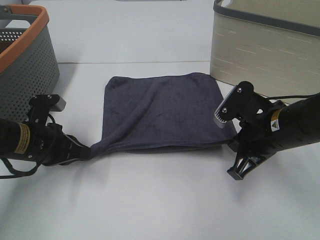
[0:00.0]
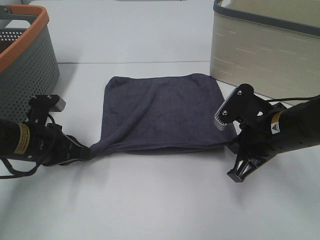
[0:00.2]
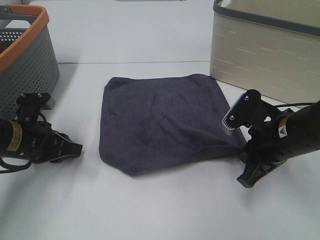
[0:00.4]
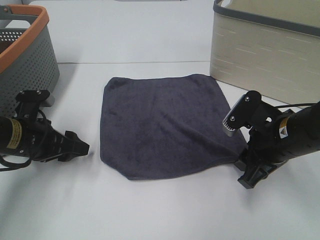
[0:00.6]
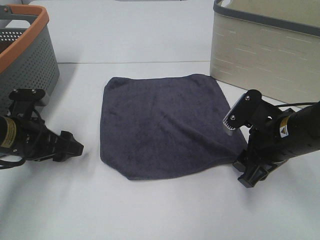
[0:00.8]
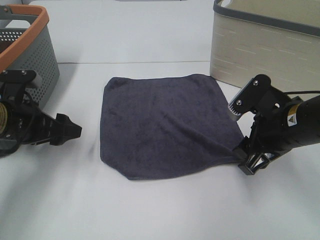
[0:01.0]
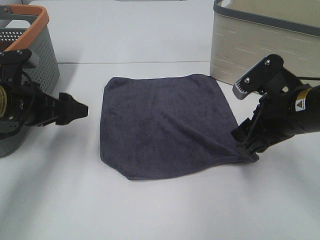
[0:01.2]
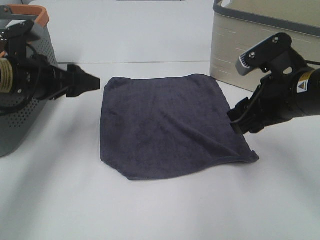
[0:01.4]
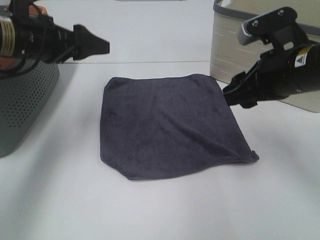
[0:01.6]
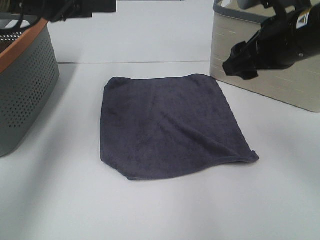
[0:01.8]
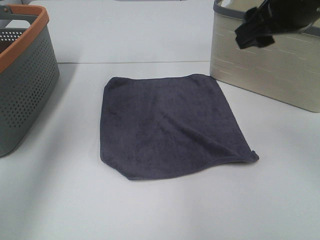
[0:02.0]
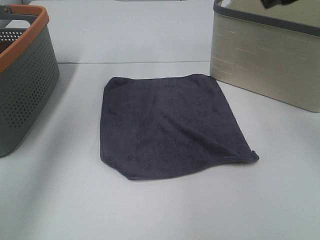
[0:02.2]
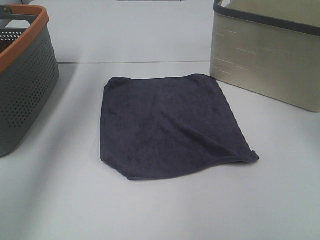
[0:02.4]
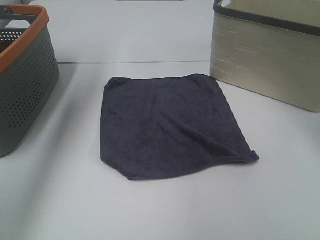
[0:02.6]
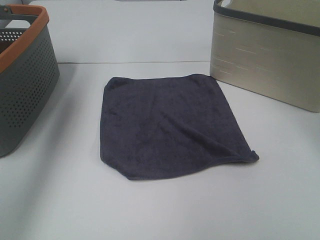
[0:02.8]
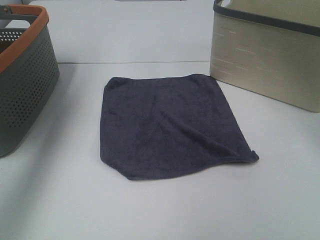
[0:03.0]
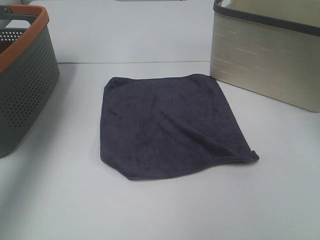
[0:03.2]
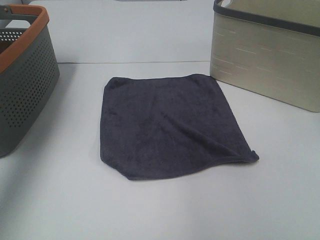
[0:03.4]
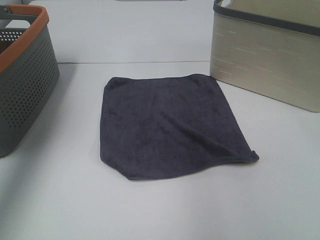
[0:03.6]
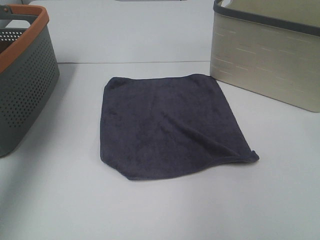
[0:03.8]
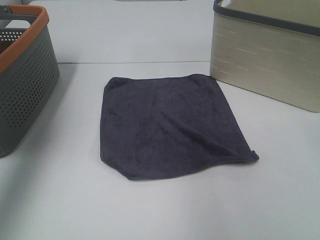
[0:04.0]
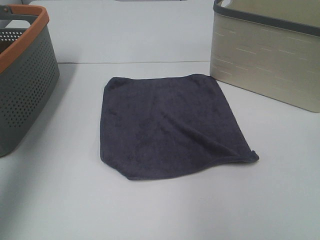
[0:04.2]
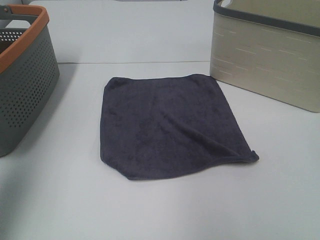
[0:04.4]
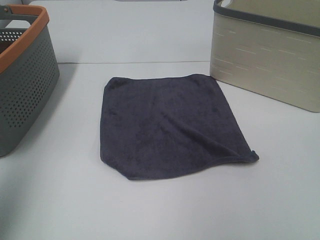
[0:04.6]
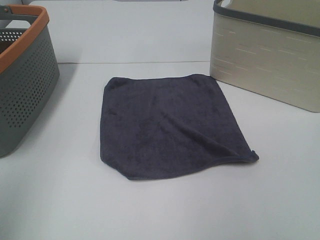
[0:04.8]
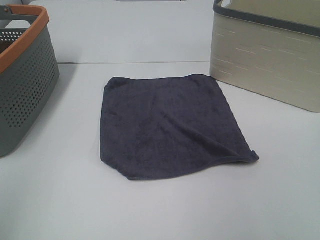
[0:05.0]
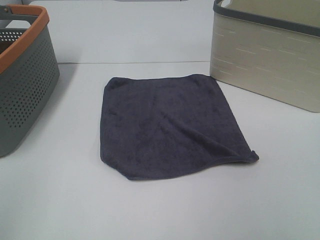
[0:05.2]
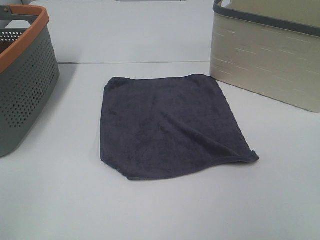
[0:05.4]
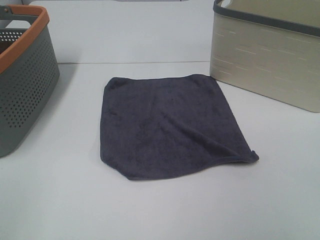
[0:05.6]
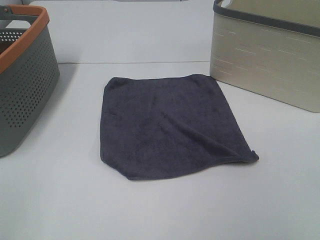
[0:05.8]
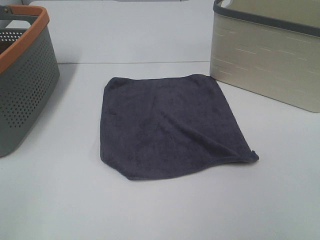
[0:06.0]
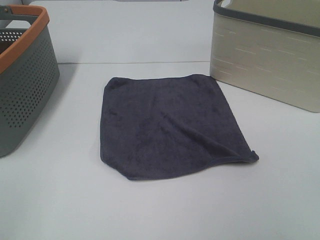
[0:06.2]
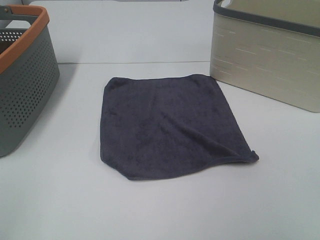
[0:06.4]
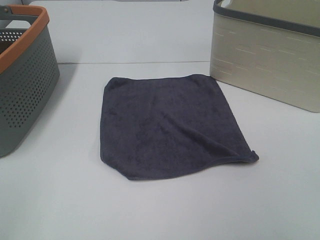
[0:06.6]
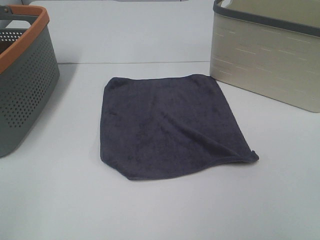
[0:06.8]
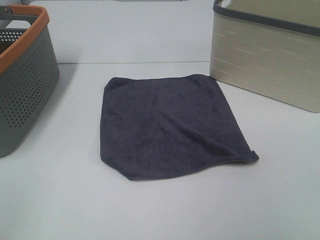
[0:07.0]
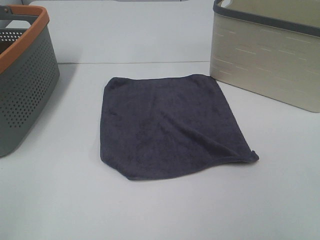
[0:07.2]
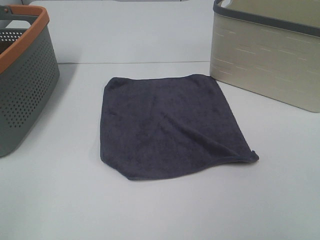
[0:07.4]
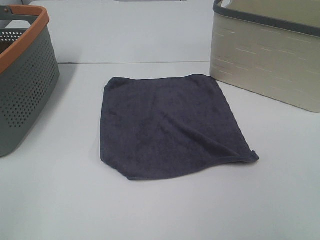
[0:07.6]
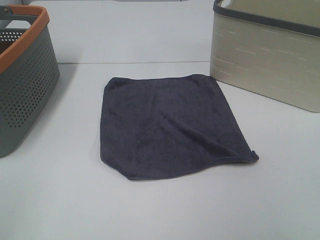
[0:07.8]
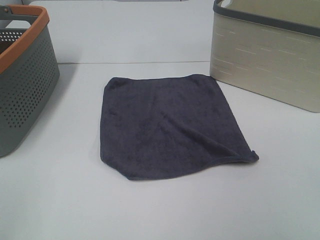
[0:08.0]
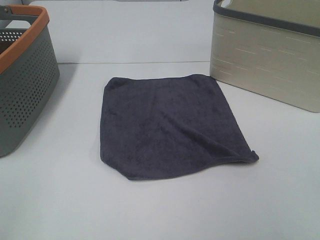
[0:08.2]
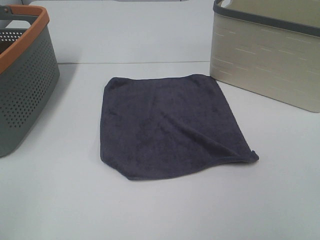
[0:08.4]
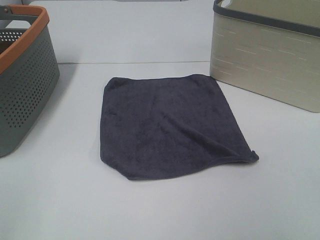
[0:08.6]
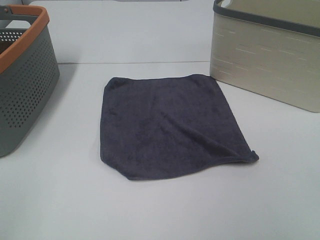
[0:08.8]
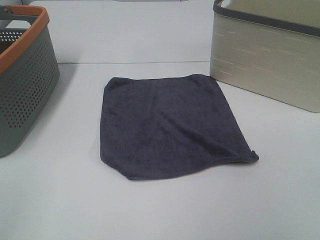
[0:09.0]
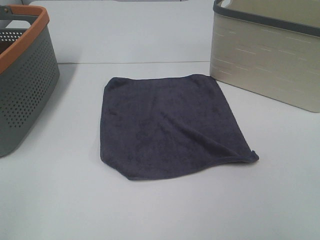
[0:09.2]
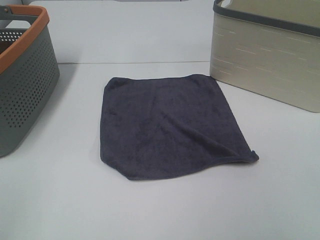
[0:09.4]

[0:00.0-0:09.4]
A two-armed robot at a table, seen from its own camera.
Task of the whole recording: Remove the towel and place it.
0:00.0 to 0:01.6: The left gripper moves upward and forward, roughly 15 cm, and opens up; the right gripper travels upward by approximately 10 cm, and opens.
0:01.6 to 0:03.2: The right gripper is displaced upward by about 20 cm; the left gripper moves upward and to the left, roughly 25 cm.
0:03.2 to 0:04.8: The two grippers go roughly 25 cm backward and downward.
0:04.8 to 0:06.2: The left gripper travels backward and downward by approximately 10 cm.
0:06.2 to 0:09.4: Both grippers stay about where they are.
